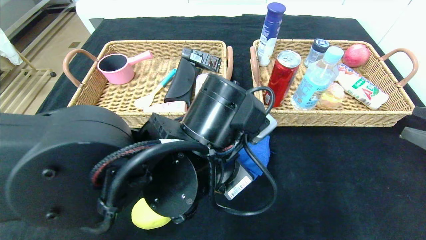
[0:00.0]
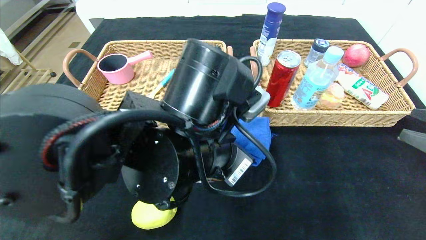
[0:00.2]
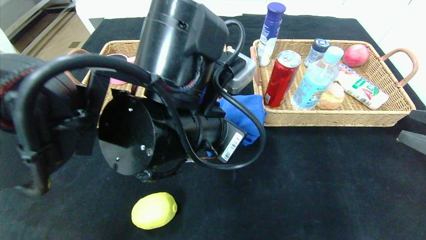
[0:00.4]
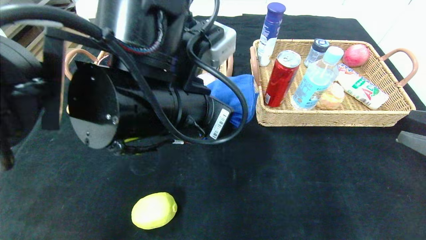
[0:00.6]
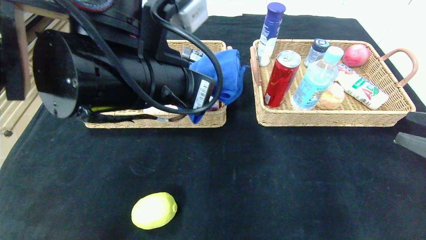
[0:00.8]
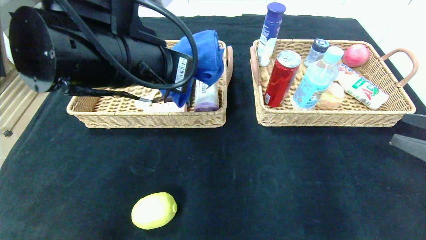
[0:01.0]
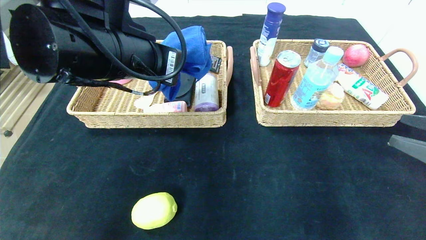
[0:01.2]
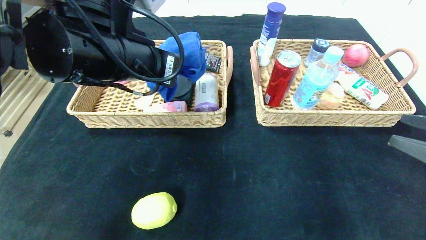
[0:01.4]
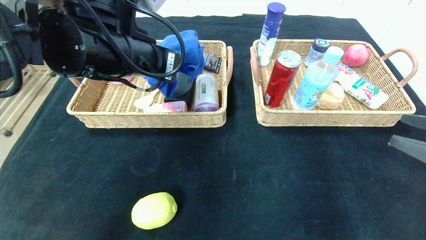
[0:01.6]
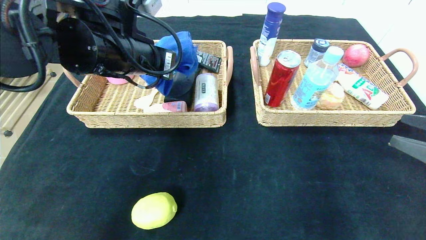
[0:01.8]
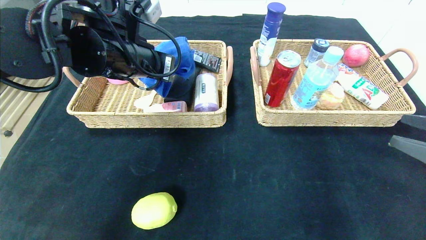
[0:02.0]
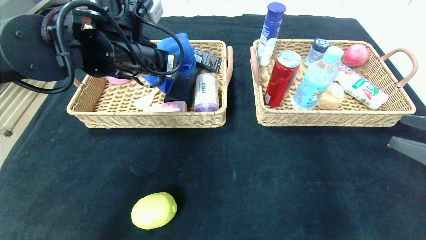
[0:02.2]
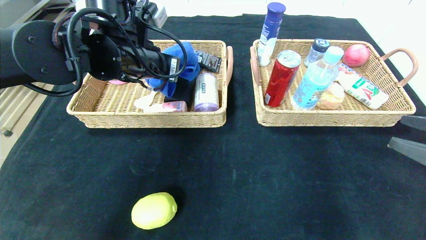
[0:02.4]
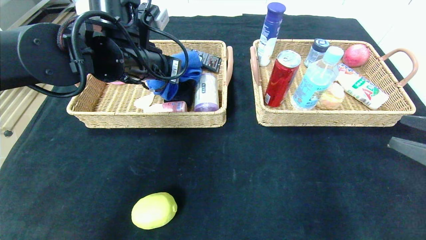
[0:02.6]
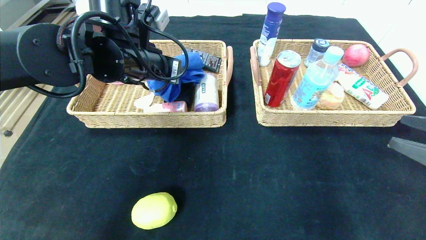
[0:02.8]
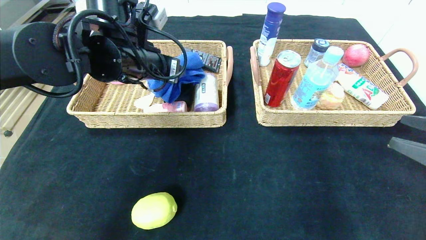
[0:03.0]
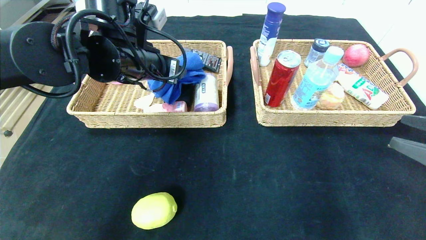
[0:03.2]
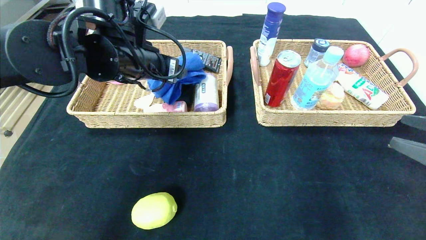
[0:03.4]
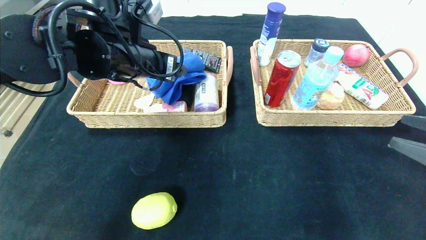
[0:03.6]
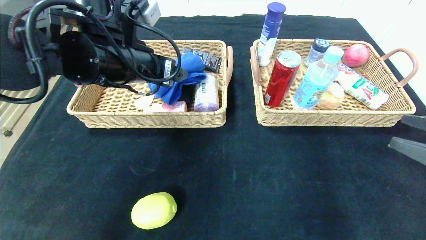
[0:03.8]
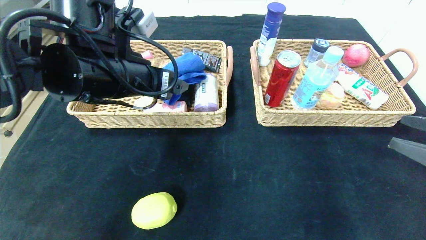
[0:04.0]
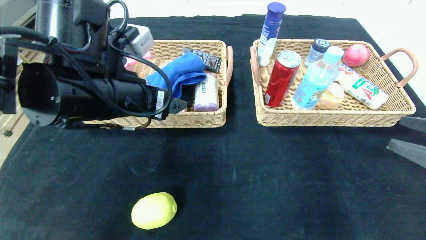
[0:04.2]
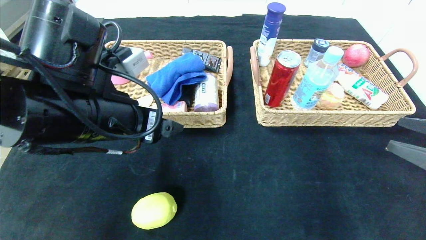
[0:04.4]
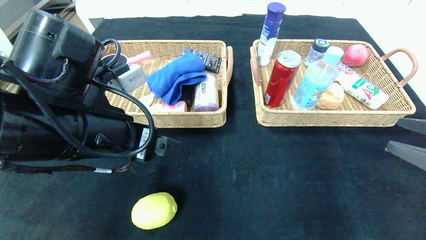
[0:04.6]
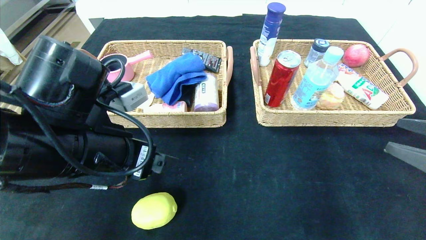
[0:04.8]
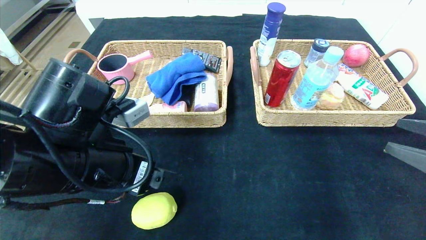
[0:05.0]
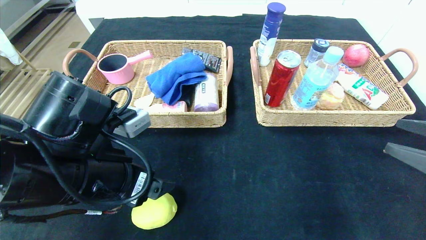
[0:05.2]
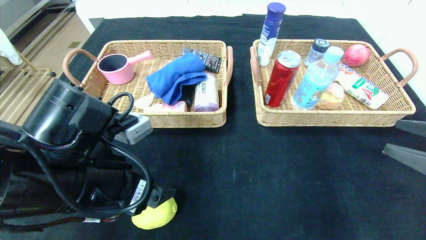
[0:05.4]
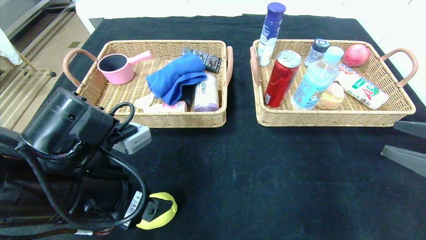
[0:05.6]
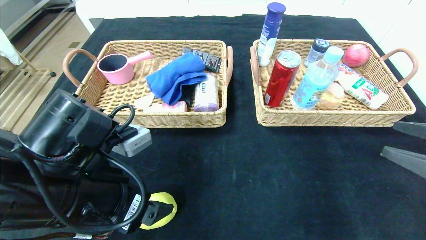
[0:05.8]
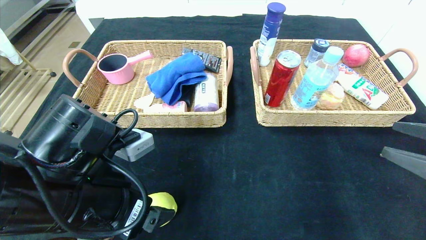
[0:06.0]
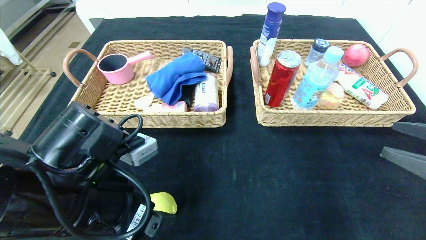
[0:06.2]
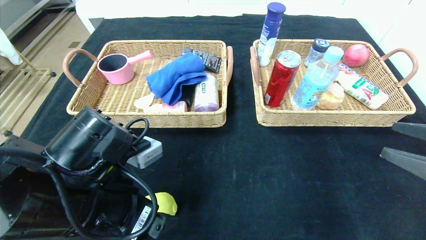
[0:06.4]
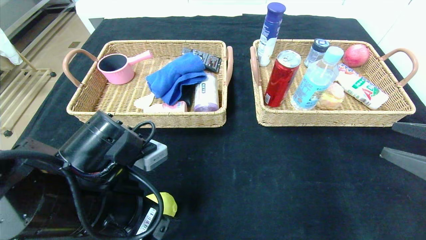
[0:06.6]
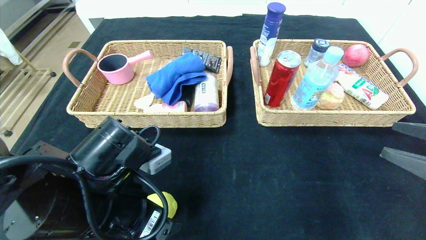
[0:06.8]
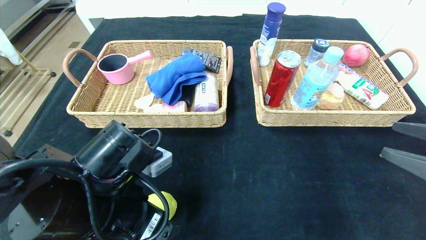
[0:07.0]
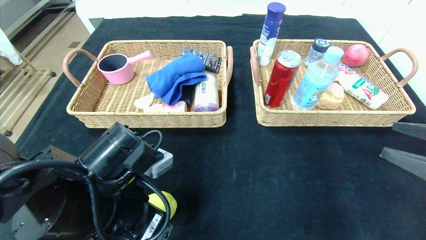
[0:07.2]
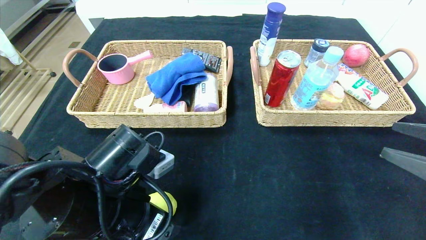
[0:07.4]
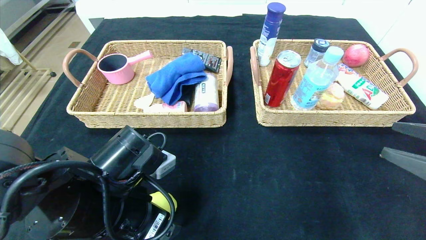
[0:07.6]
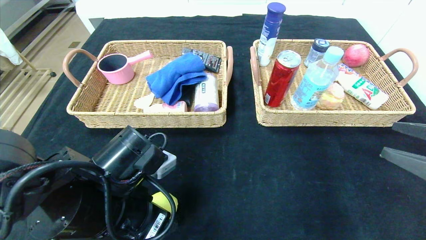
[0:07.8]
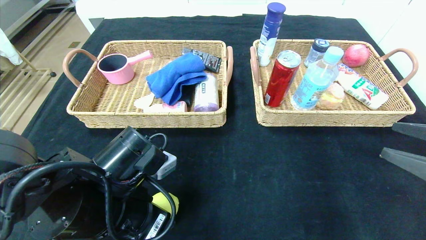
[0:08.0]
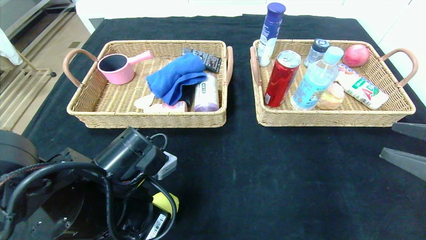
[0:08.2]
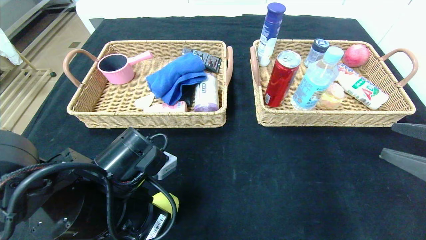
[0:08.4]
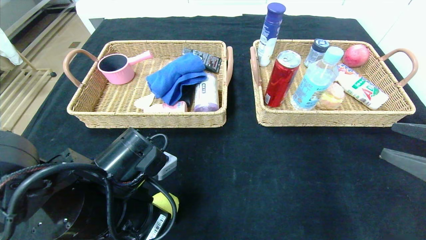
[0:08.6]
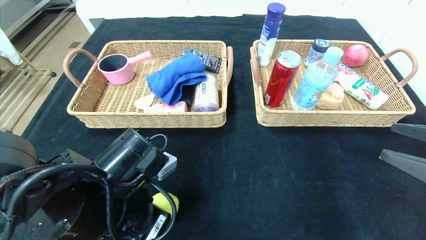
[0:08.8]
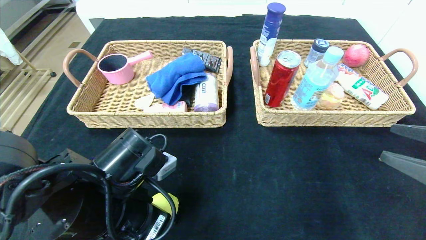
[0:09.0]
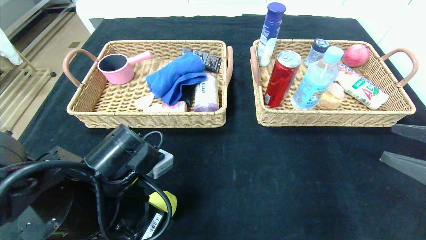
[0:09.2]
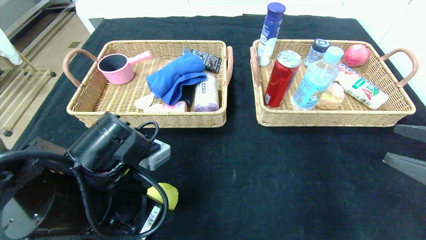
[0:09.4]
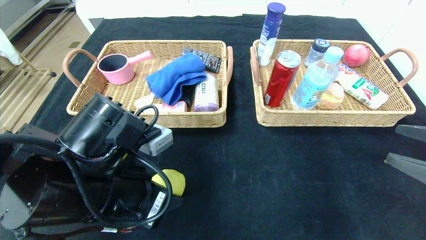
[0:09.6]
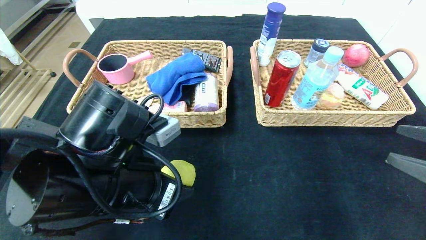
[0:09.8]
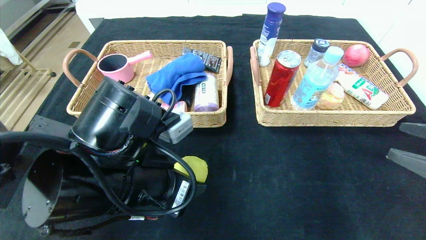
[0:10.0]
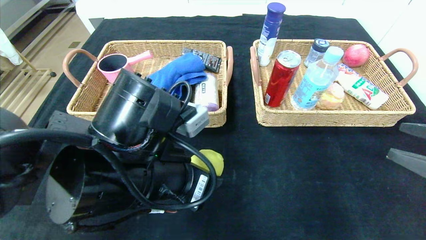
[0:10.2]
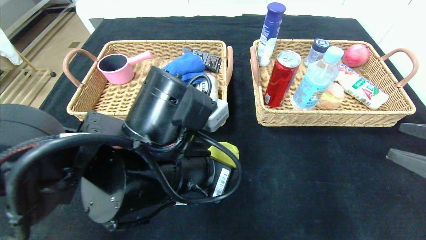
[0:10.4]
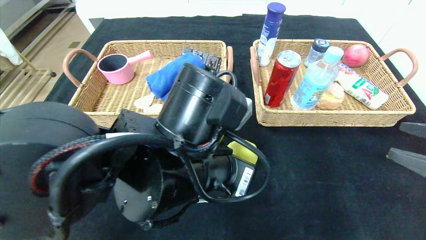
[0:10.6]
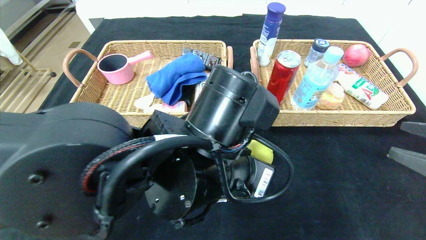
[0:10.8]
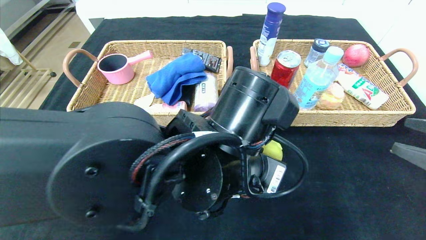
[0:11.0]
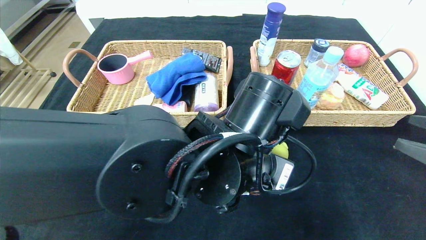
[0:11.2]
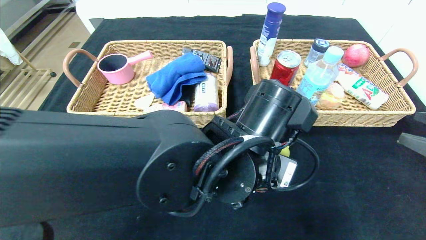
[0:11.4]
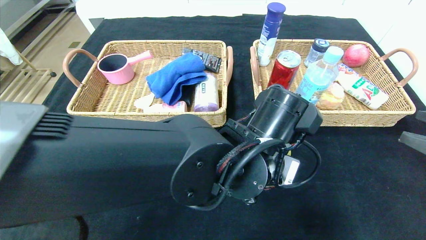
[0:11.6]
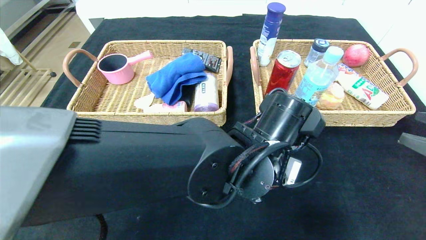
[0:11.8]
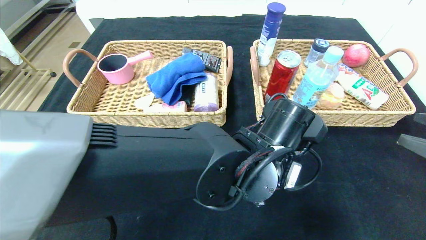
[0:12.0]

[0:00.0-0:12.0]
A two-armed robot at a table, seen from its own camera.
Step, 0:00.0 to 0:03.4: Grasp the blue towel and put it in the left basket.
0:00.0 to 0:01.6: The left gripper heads to the left, upward and forward, covering about 20 cm.
0:01.6 to 0:03.0: The left gripper is displaced forward by about 5 cm, and opens.
0:03.0 to 0:04.4: The left gripper is displaced backward by roughly 10 cm.
0:04.4 to 0:06.0: The left gripper heads downward and backward, covering about 10 cm.
0:06.0 to 0:07.6: The grippers stay close to where they were, moving slightly.
0:07.6 to 0:09.0: The left gripper closes its fingers.
0:09.0 to 0:10.4: The left gripper shifts approximately 10 cm to the right and upward.
0:10.4 to 0:12.0: The left gripper is displaced to the right by roughly 10 cm.

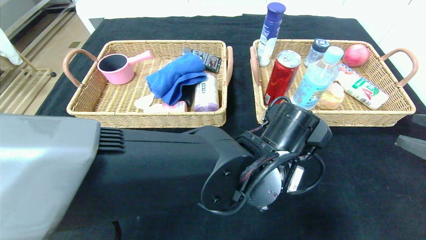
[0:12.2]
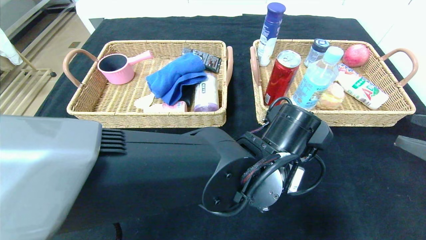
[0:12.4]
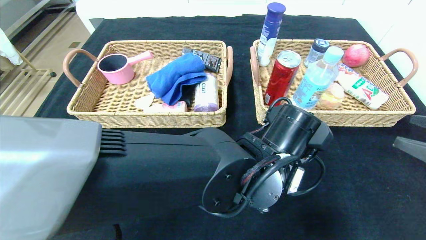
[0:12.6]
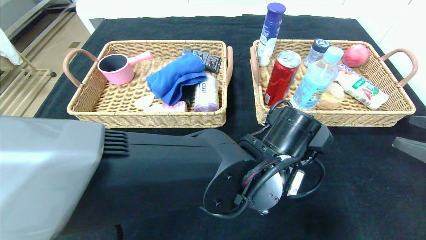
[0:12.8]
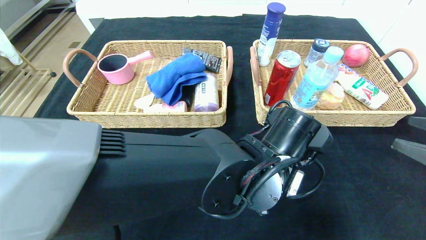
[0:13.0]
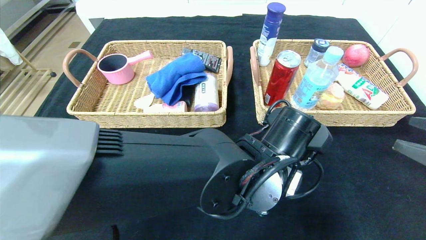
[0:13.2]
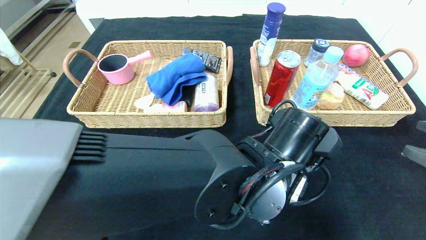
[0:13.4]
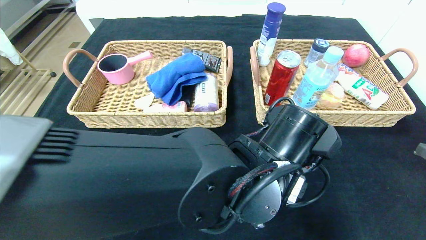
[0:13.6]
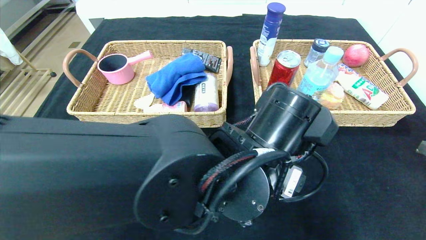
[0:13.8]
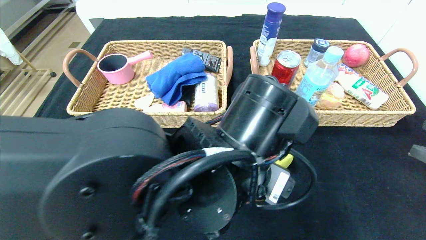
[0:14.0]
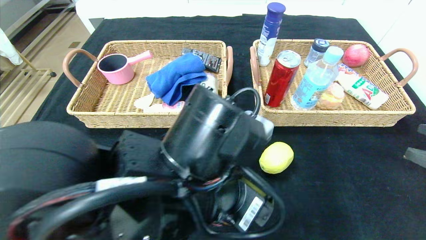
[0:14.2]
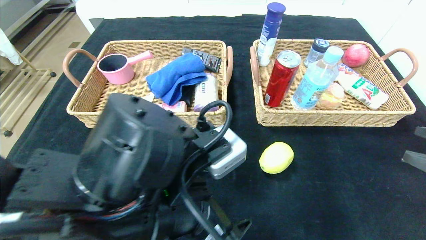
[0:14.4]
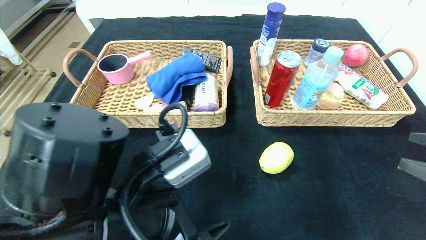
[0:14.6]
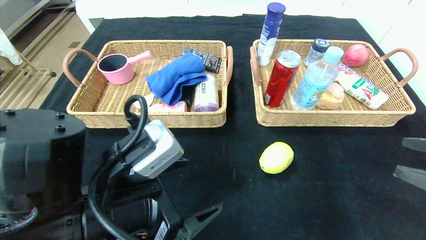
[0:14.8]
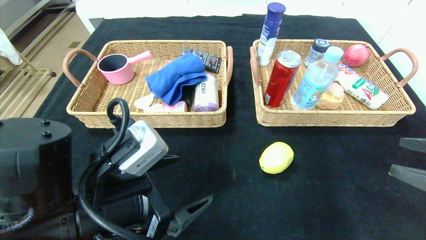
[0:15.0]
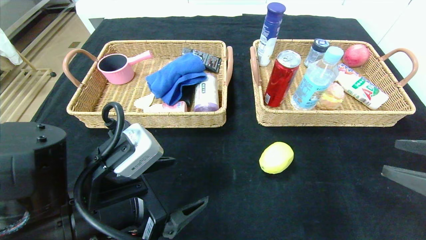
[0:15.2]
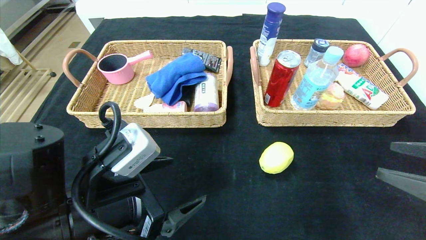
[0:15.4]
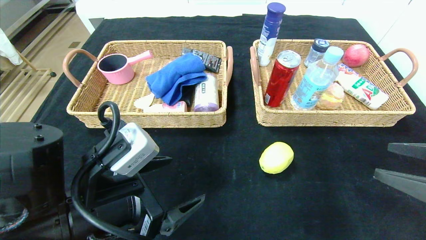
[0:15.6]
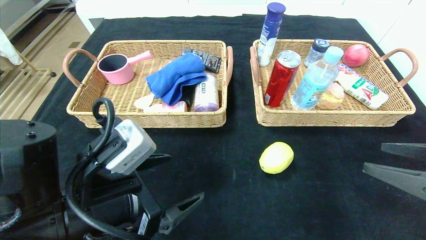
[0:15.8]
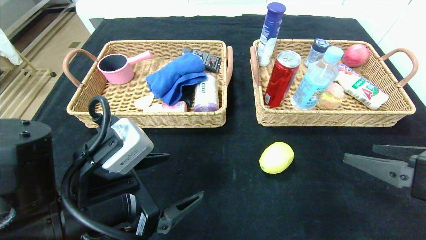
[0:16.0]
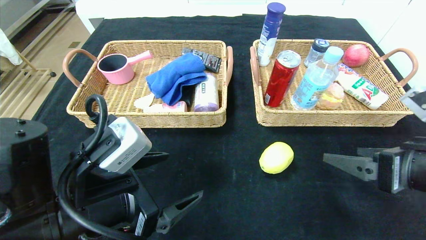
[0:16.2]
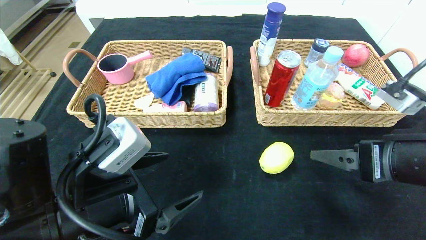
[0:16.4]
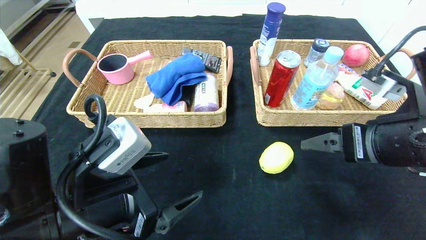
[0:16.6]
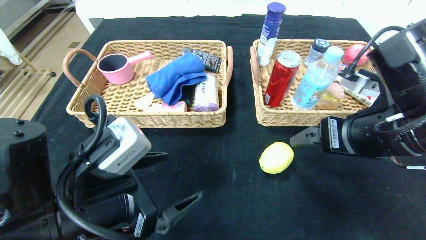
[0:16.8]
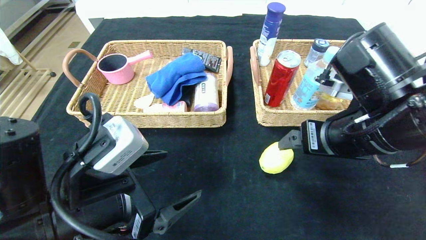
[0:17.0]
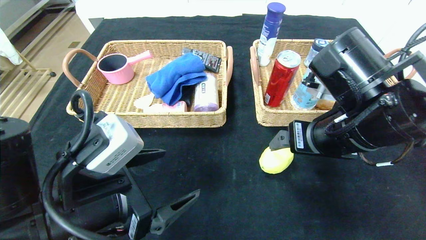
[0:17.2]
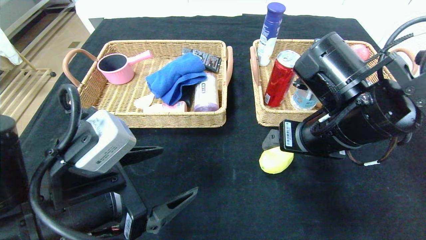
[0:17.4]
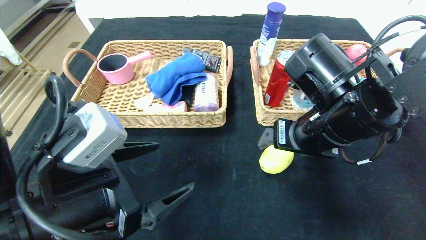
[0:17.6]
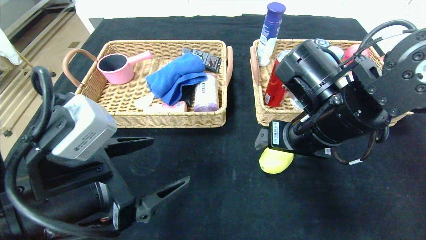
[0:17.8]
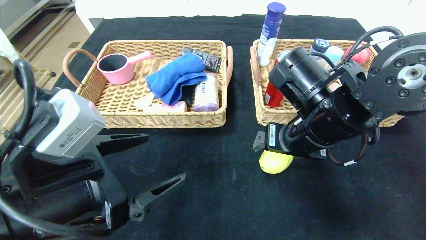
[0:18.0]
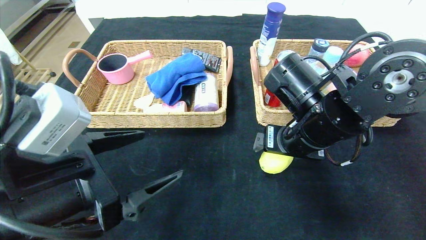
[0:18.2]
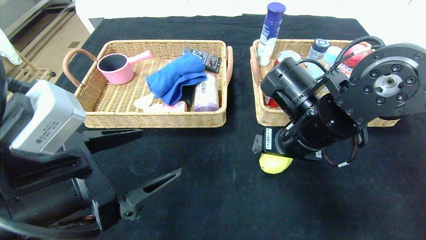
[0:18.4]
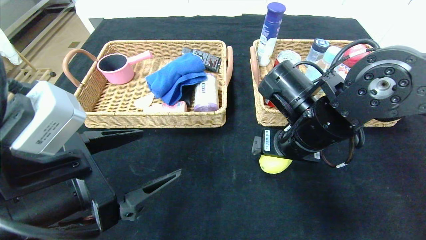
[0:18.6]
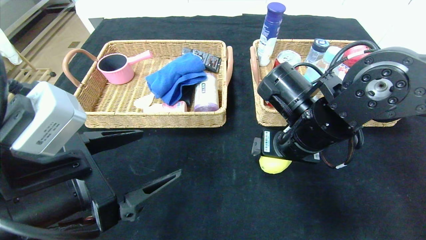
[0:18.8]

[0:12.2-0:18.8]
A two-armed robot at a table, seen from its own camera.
0:12.2 to 0:13.8: The left gripper shifts by some 5 cm, and opens.
0:13.8 to 0:15.4: The left gripper heads to the left, covering roughly 20 cm.
0:15.4 to 0:17.2: The right gripper is displaced to the left and forward by roughly 20 cm.
0:17.2 to 0:18.8: The right gripper shifts by some 5 cm.
